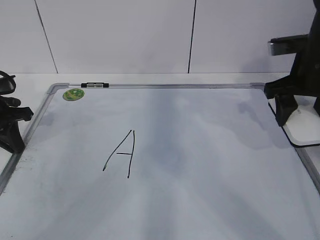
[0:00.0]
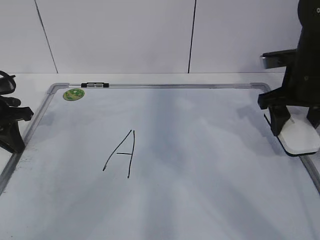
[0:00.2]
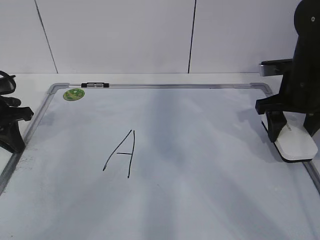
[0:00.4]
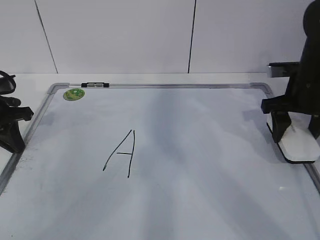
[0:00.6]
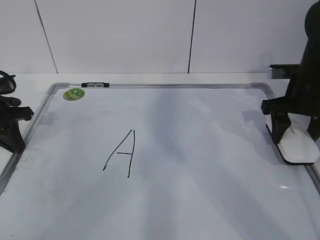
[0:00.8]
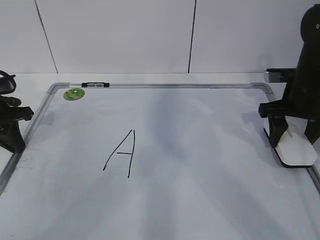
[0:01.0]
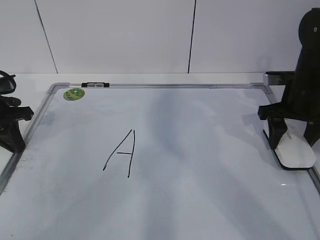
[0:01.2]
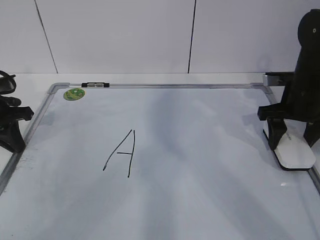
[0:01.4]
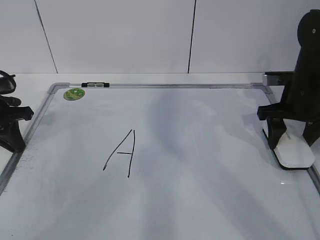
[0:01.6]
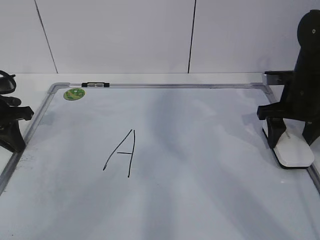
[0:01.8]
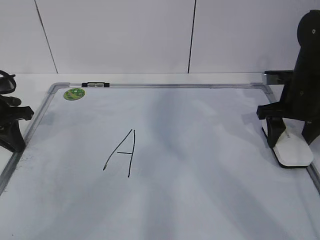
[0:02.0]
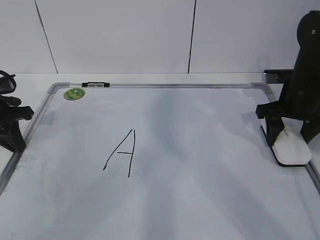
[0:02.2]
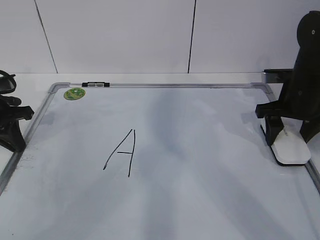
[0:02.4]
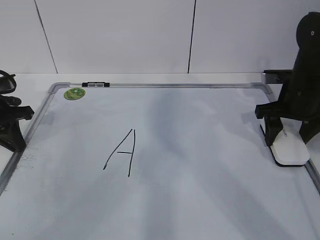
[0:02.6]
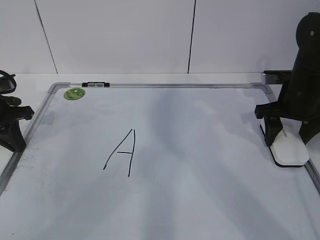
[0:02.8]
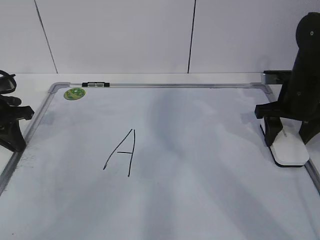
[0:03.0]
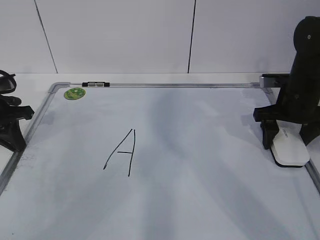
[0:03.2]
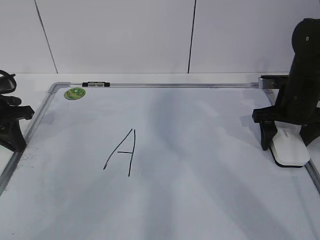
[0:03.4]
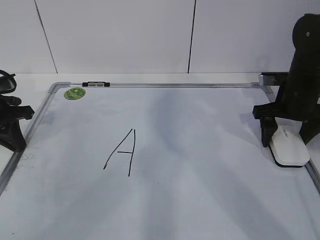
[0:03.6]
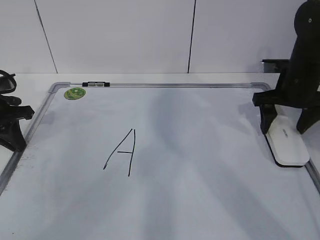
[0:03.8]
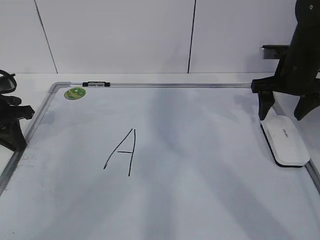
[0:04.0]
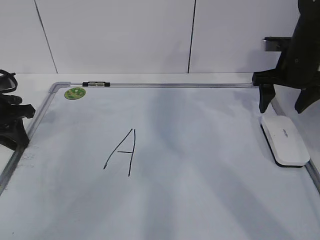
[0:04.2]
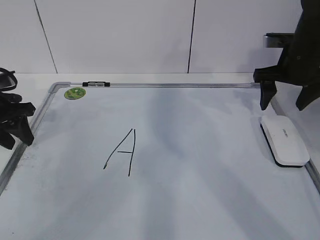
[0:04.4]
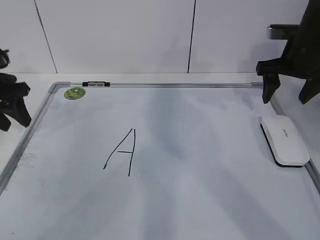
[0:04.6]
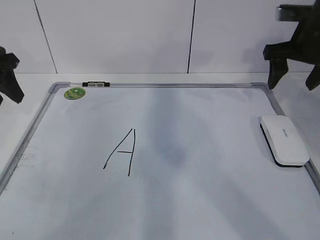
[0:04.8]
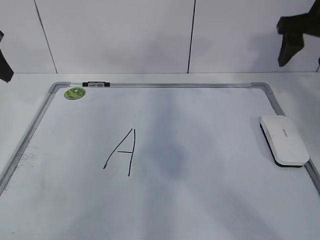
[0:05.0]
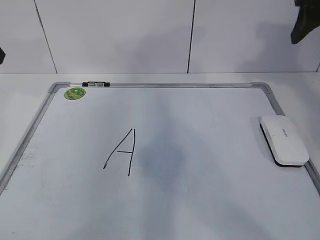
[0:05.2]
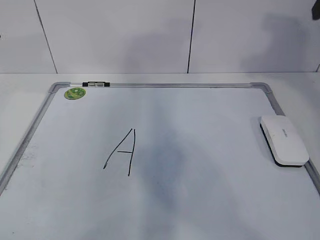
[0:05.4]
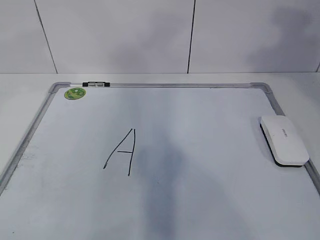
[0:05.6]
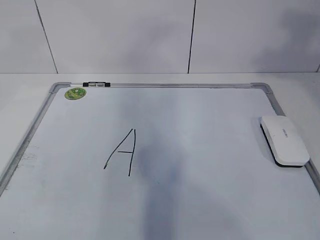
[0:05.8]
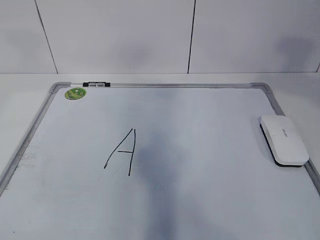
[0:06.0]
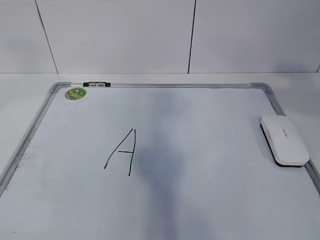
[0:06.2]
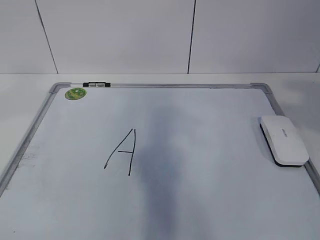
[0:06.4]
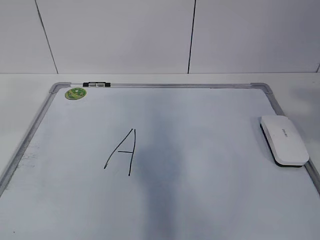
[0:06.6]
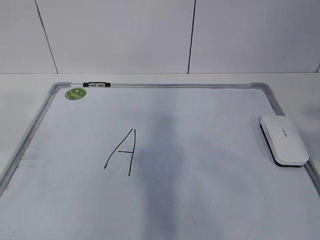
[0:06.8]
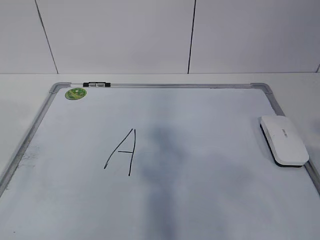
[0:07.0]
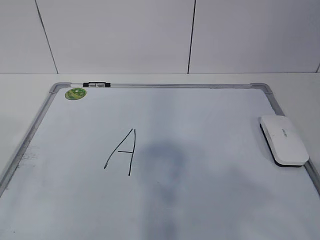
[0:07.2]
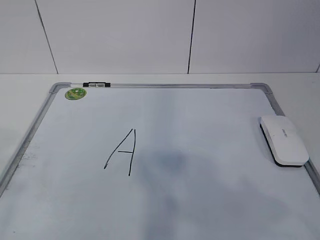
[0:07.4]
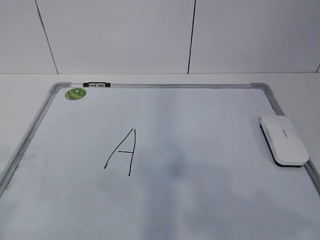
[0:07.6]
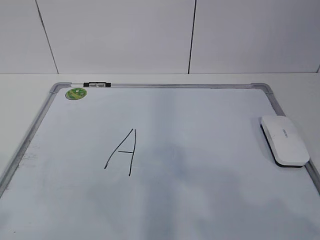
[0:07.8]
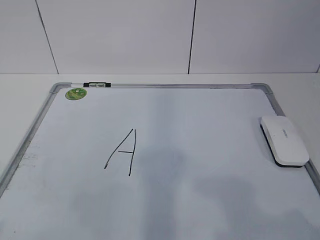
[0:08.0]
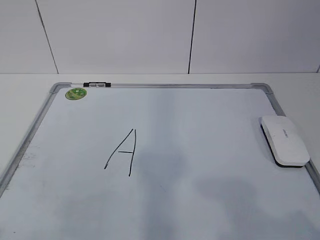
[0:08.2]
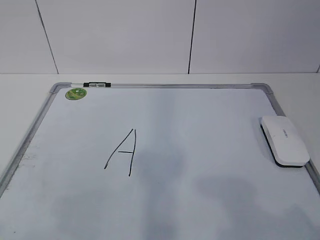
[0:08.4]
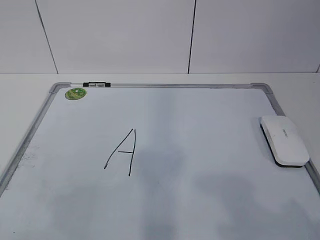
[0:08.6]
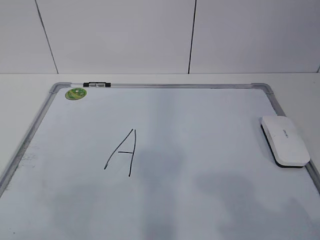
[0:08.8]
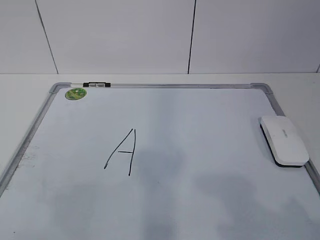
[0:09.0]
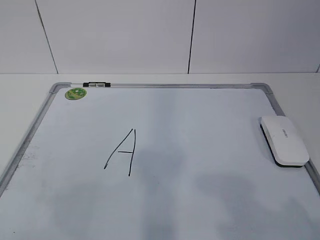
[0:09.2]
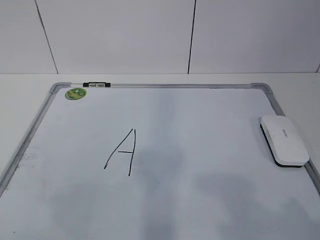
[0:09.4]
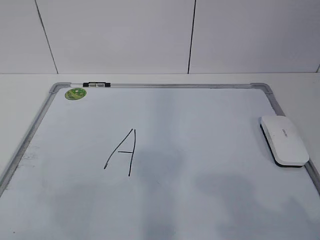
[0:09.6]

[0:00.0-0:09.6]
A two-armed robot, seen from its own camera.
Task of the whole recording: pick up the eraser on the blackboard and erase the letter "a".
0:00.0 to 0:01.6: The right gripper moves downward, about 5 cm.
0:01.6 to 0:03.2: The right gripper opens its fingers.
0:03.2 to 0:04.8: Both grippers travel together upward, roughly 10 cm. The left gripper opens its fingers.
0:04.8 to 0:06.4: Both grippers move backward and upward, approximately 35 cm. The right gripper closes.
0:06.4 to 0:08.0: The grippers both shift downward and backward by some 20 cm.

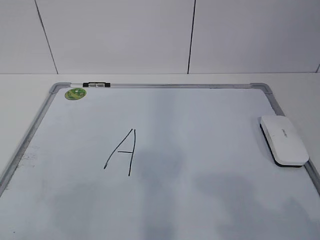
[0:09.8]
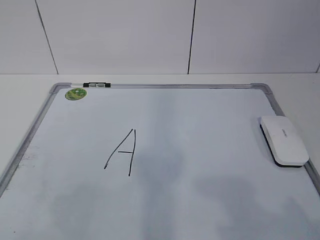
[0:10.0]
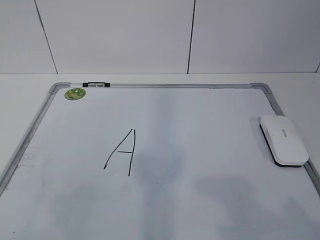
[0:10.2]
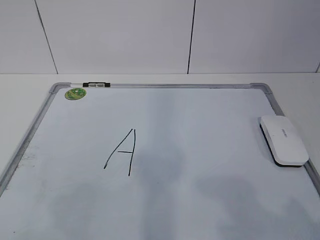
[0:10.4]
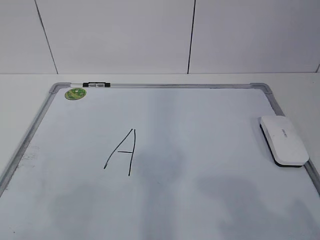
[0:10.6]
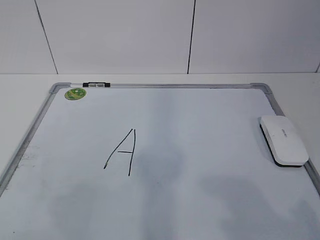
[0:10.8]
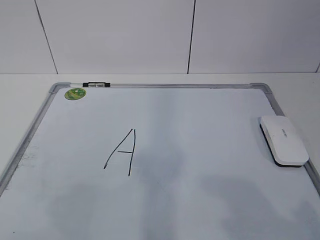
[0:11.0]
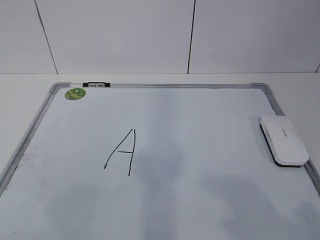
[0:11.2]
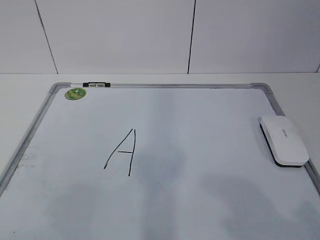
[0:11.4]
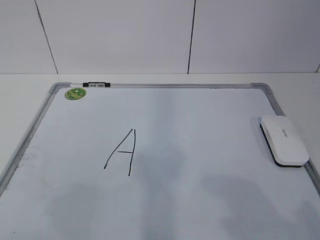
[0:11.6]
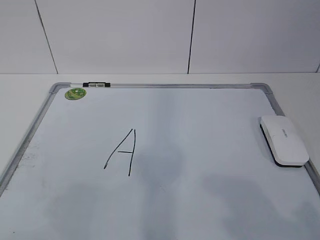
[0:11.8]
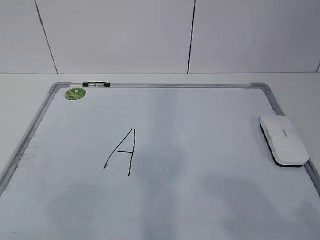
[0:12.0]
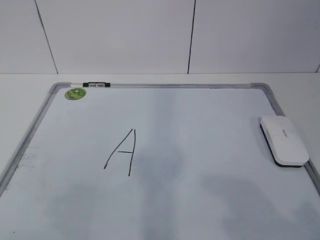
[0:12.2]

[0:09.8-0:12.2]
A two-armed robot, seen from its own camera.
Task of the whole recording: pick up the eraser on the blackboard and erase the letter "a".
0:11.0 to 0:12.2: The two grippers keep their place.
